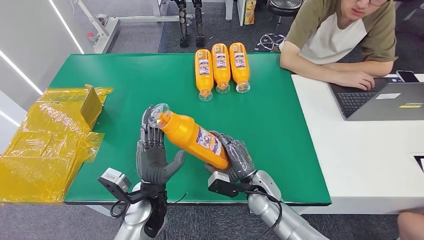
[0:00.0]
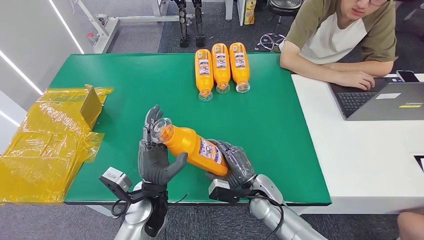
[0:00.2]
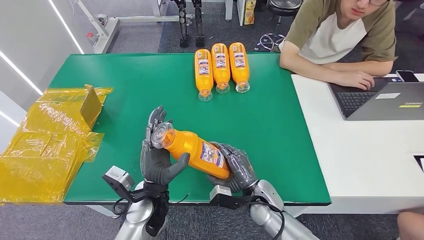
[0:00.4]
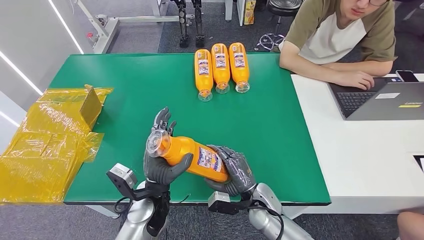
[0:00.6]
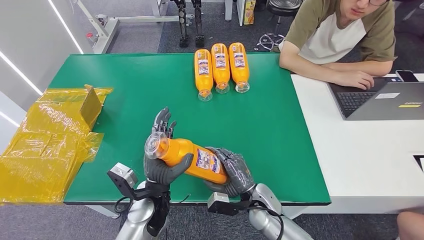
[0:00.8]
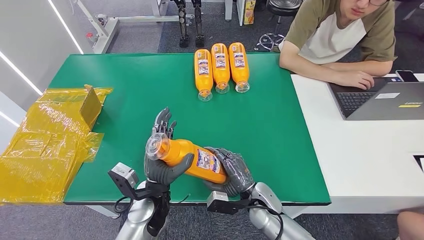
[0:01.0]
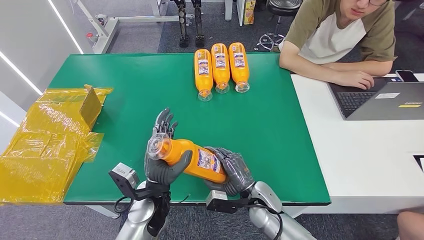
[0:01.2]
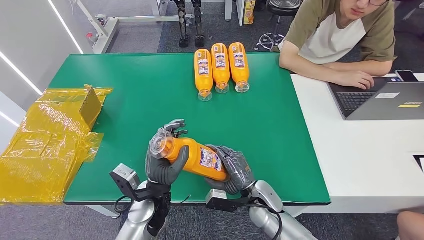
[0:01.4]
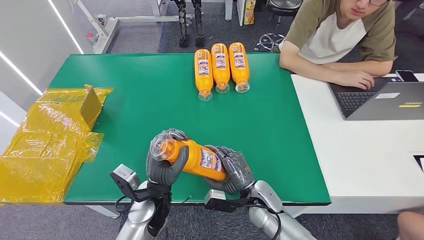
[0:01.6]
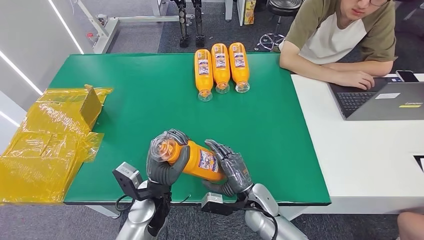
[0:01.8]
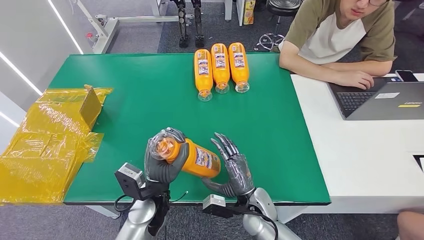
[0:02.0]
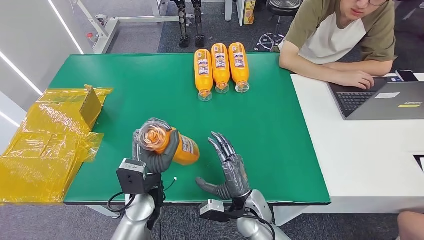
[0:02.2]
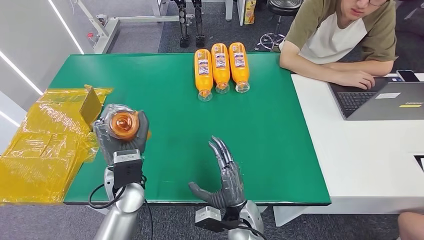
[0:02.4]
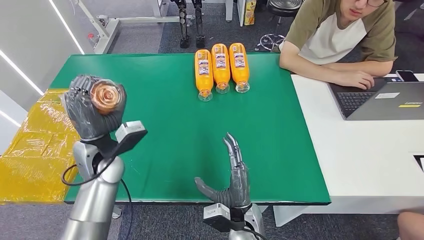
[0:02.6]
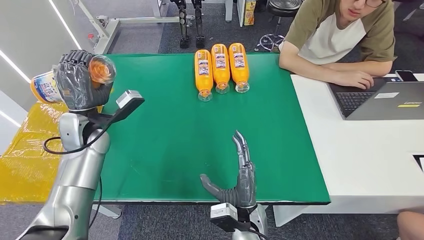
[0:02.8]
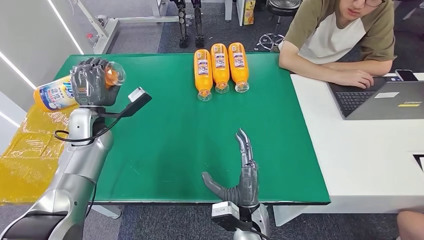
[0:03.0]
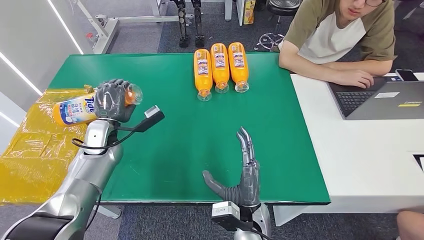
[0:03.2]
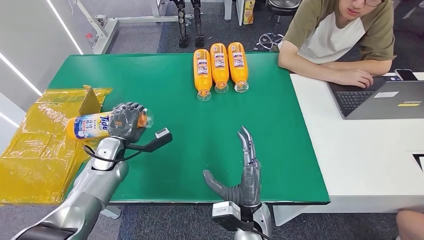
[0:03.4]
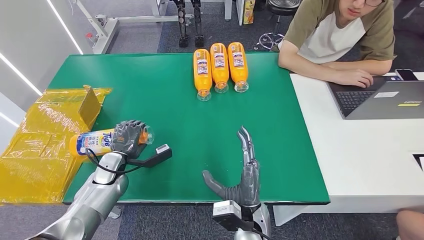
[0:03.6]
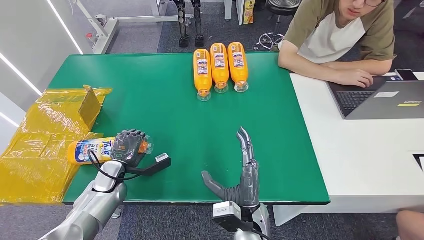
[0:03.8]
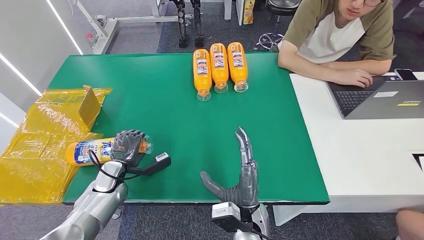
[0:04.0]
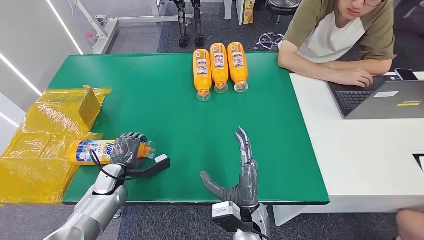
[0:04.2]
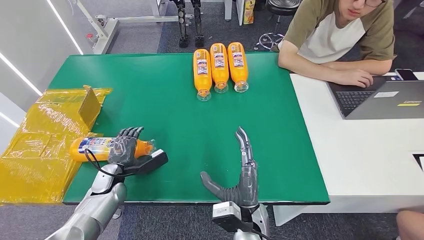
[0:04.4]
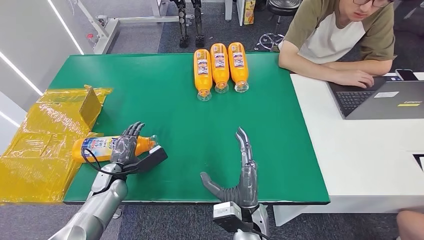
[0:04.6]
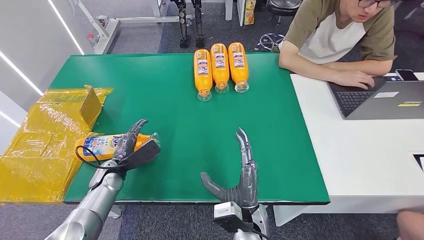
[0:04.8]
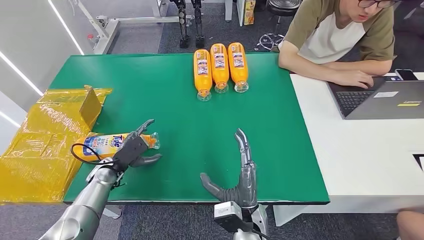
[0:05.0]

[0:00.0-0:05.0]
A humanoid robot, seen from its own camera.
Step, 0:00.0 to 0:04.8: Turn the bottle to the front side.
0:00.0 to 0:01.6: The hands make only small movements.
0:01.6 to 0:03.4: The left hand travels to the left and forward by roughly 20 cm. Meanwhile the right hand shifts approximately 10 cm backward and to the left.
0:03.4 to 0:05.0: The left hand goes some 5 cm downward.

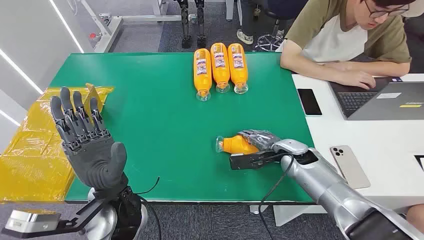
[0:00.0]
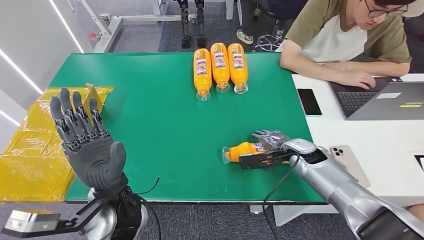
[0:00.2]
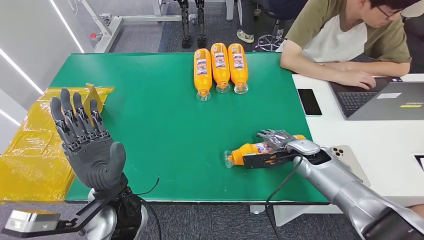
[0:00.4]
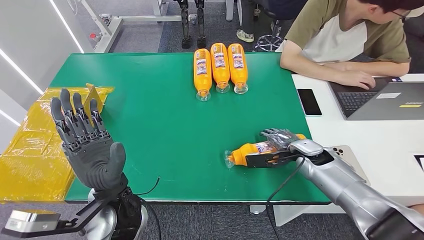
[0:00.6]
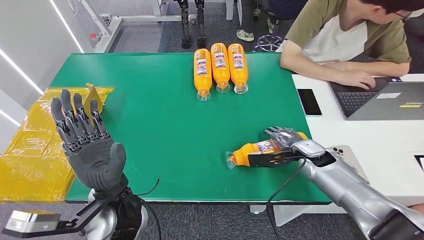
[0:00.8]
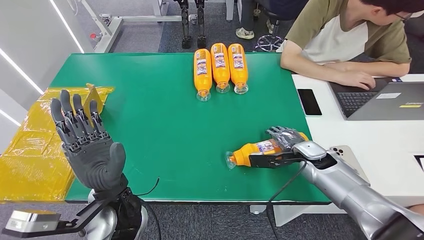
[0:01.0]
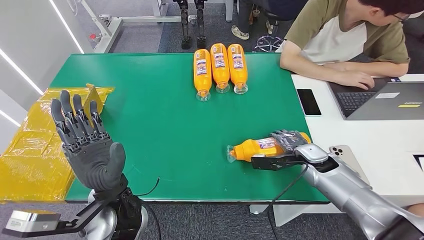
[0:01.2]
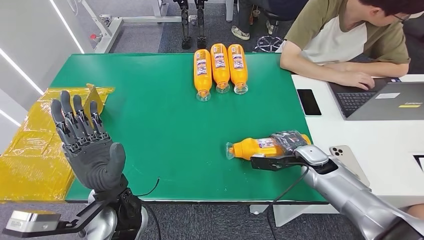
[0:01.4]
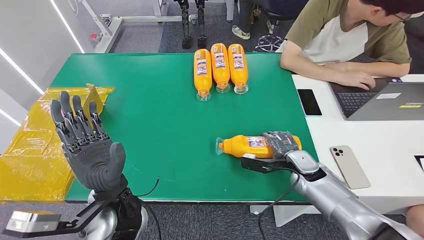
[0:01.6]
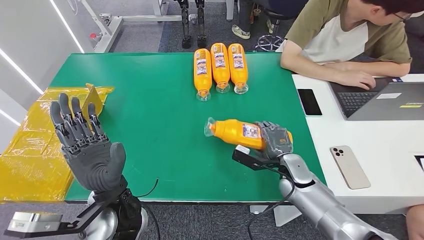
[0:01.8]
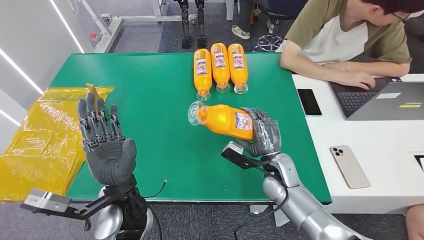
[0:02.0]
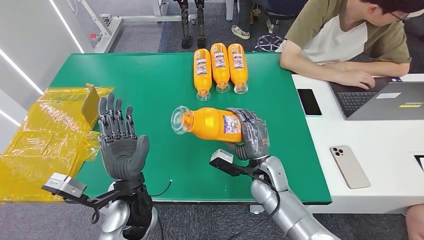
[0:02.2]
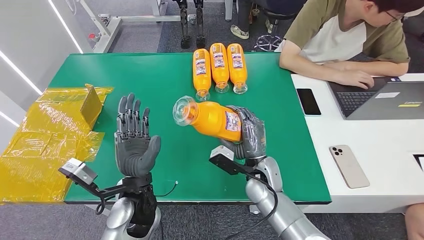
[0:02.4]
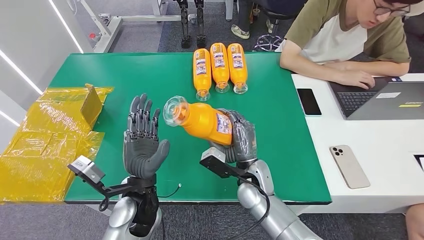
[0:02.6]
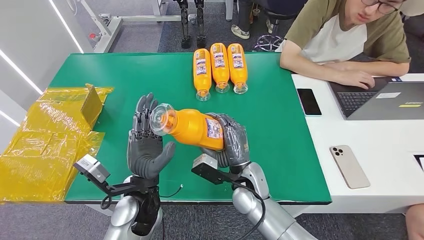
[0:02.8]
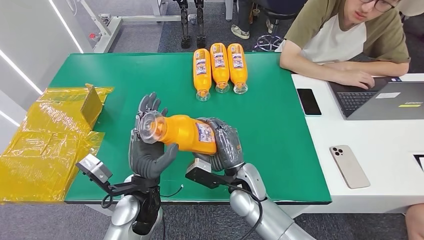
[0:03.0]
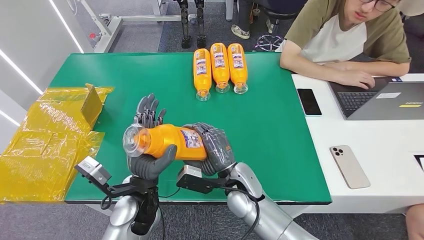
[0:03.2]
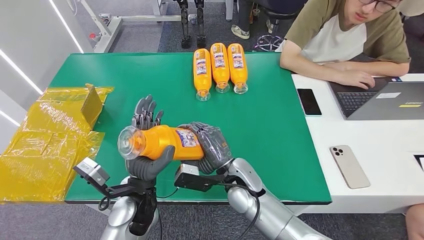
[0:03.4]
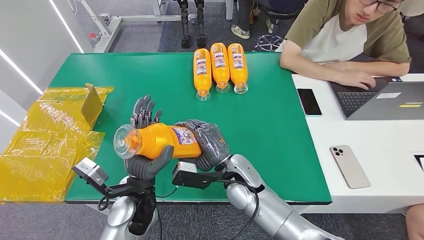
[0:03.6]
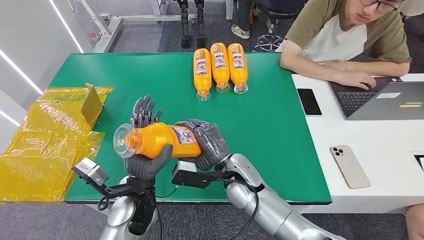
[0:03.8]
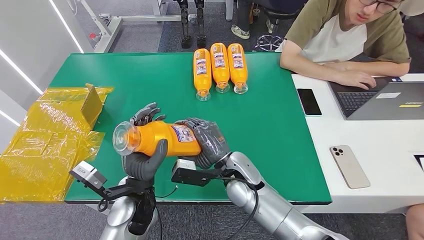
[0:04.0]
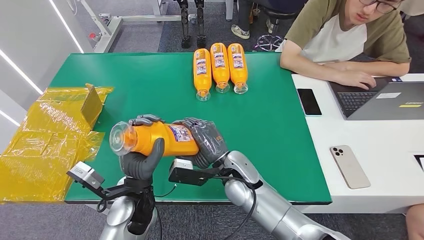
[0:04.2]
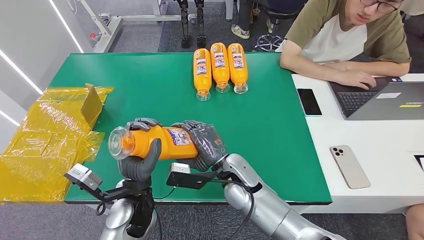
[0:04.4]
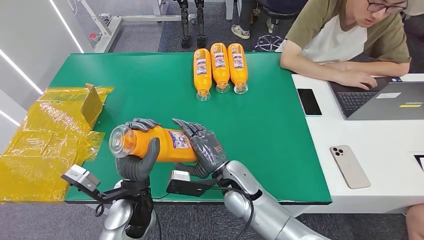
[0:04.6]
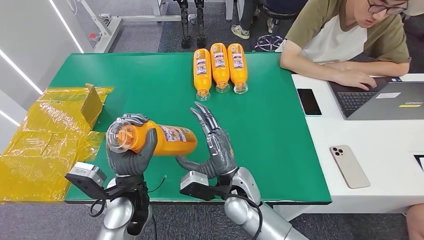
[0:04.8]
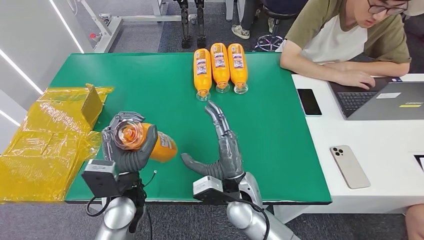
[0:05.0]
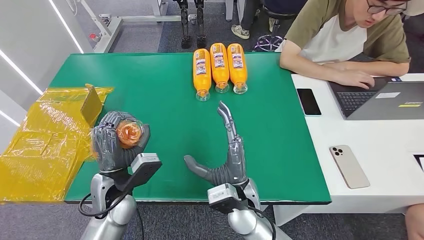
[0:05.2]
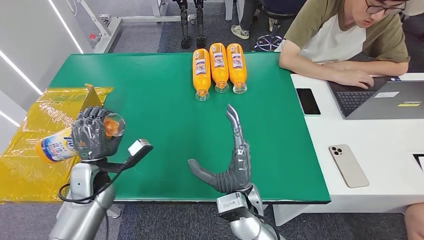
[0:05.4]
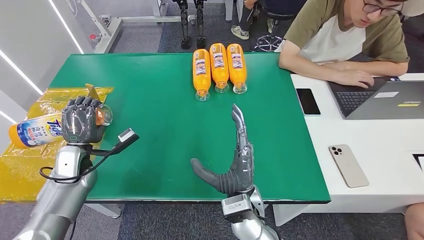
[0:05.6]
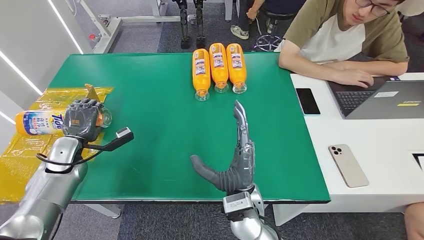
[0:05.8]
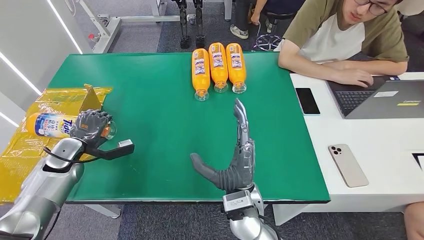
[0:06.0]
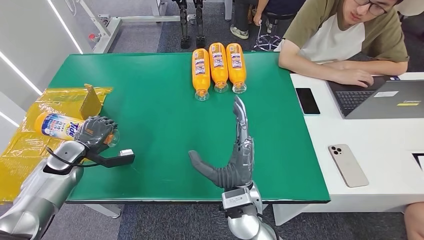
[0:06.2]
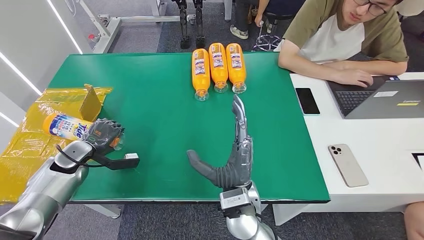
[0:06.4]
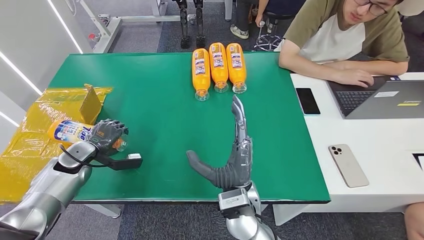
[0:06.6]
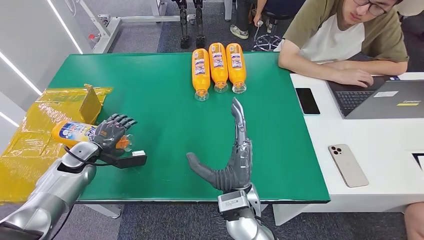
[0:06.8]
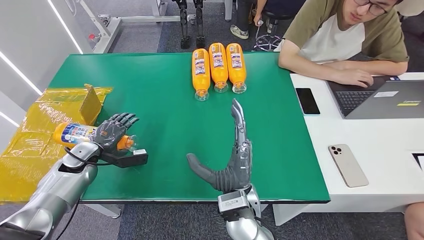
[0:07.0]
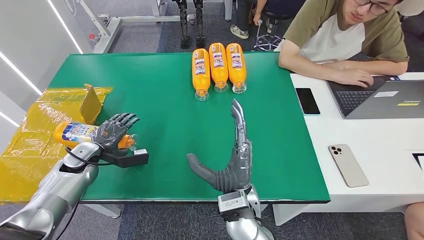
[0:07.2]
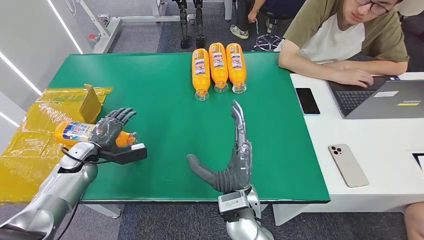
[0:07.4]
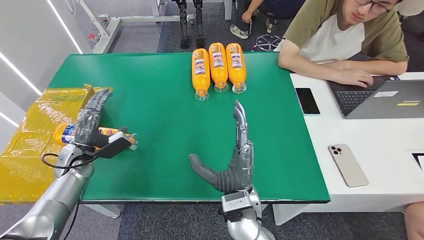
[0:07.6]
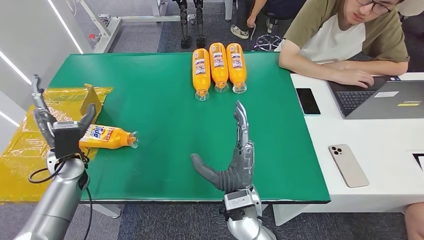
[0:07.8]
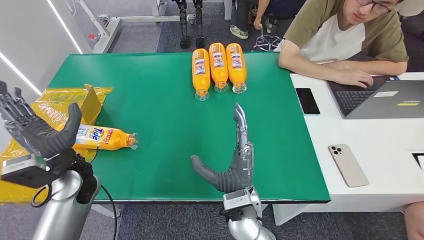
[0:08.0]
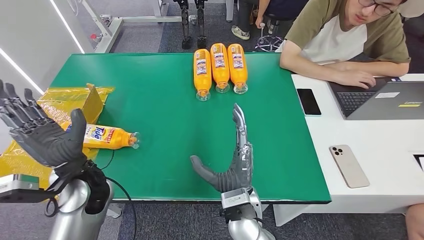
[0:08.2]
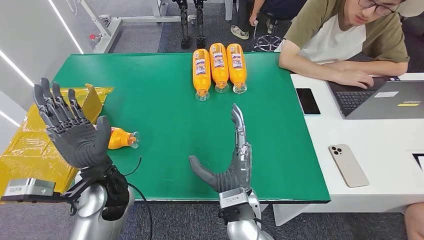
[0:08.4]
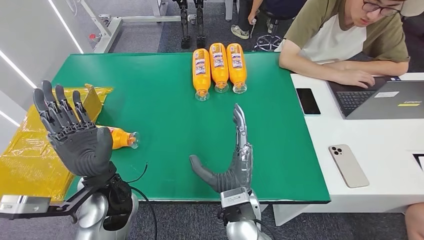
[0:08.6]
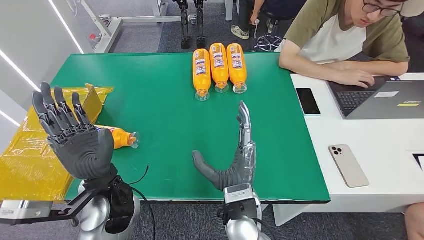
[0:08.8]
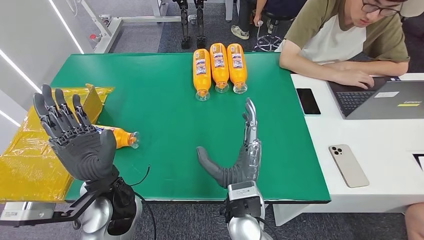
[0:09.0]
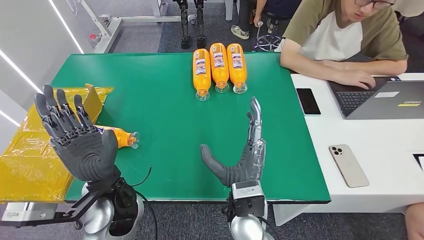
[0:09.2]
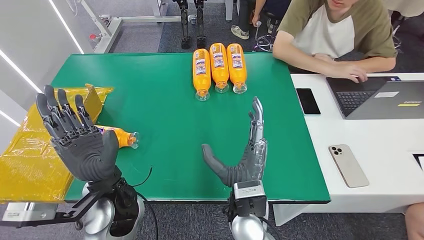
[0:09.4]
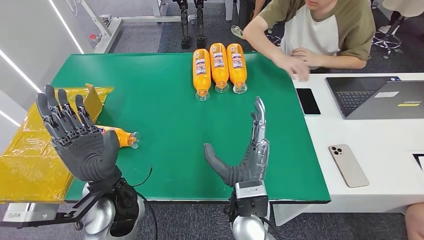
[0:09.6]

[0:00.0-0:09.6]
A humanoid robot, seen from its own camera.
Step, 0:00.0 to 0:03.4: Pick up the bottle from the table.
0:06.4 to 0:08.0: The left hand heads to the right and upward, covering roughly 15 cm.

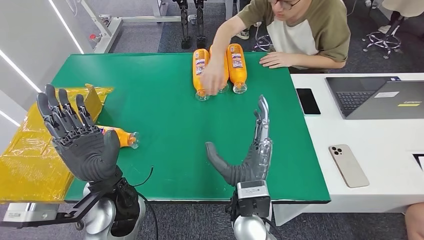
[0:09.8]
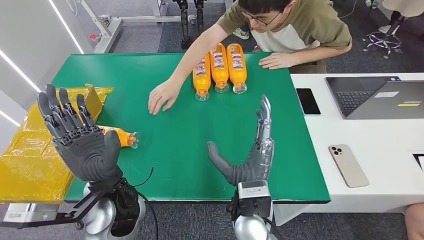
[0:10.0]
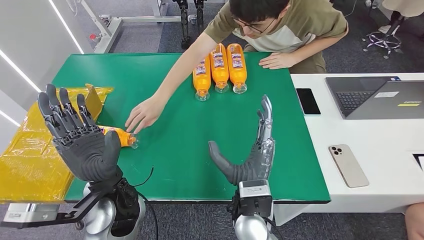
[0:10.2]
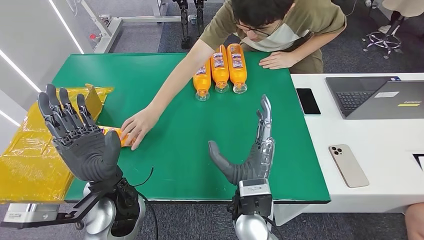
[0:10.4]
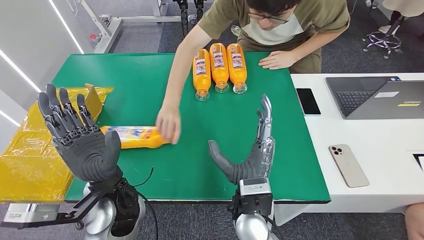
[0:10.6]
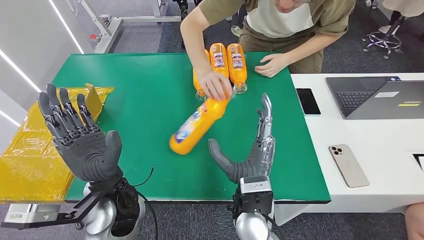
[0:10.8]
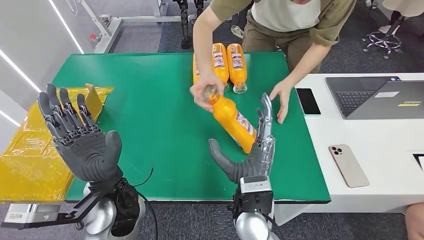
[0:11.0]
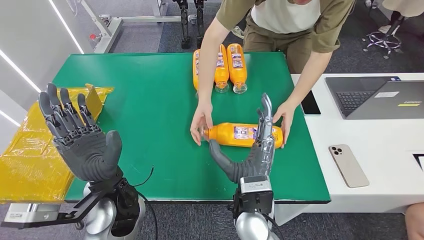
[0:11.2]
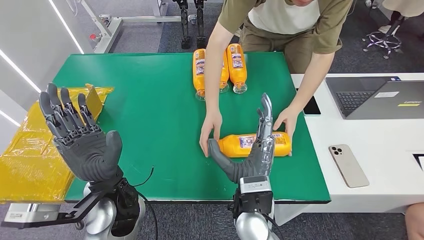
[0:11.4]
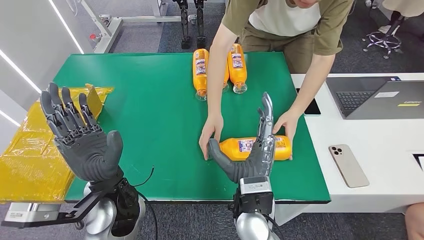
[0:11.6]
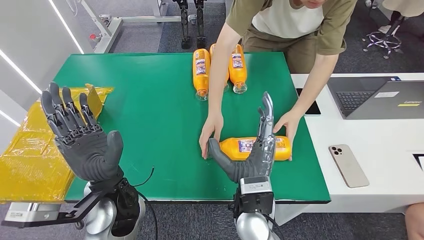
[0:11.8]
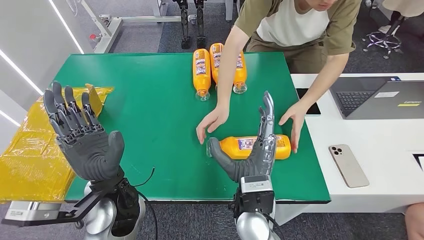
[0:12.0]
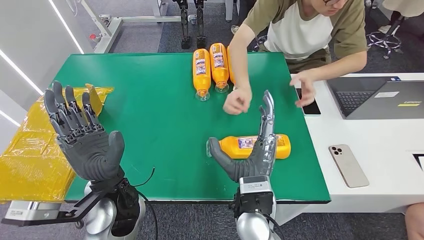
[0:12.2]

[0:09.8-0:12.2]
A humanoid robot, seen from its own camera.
Step, 0:09.8 to 0:12.2: Turn the bottle to the front side.
0:09.8 to 0:12.2: The two hands keep their place.
